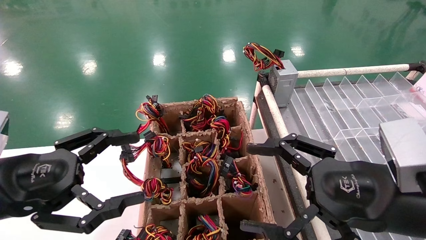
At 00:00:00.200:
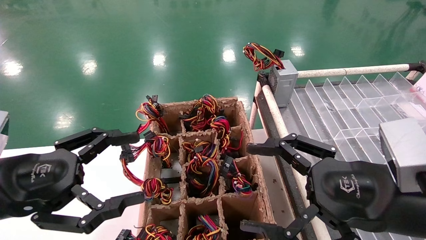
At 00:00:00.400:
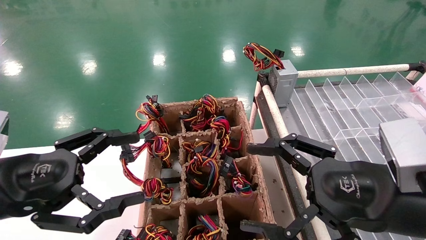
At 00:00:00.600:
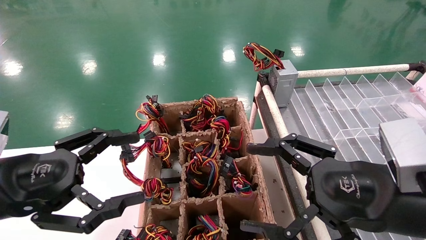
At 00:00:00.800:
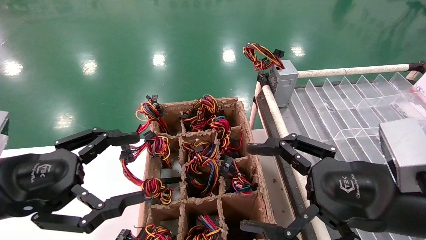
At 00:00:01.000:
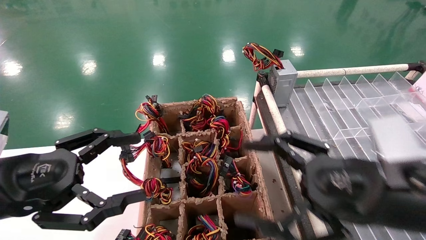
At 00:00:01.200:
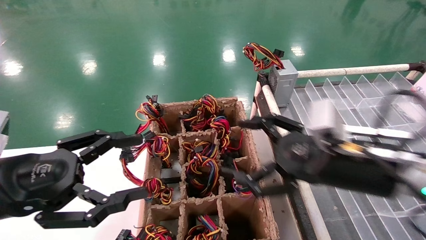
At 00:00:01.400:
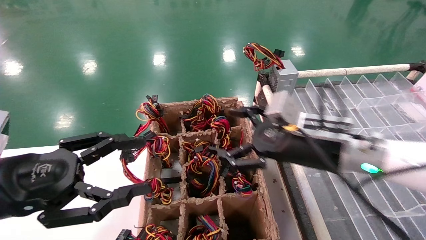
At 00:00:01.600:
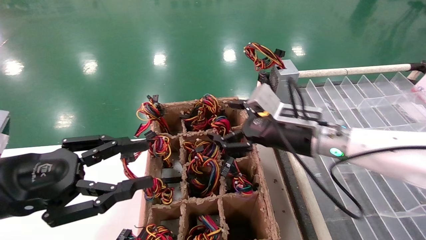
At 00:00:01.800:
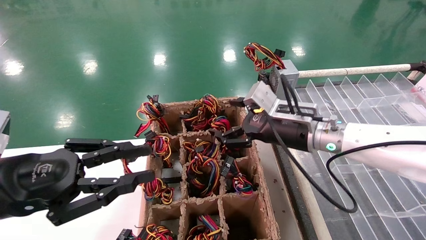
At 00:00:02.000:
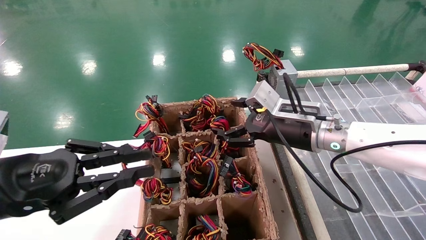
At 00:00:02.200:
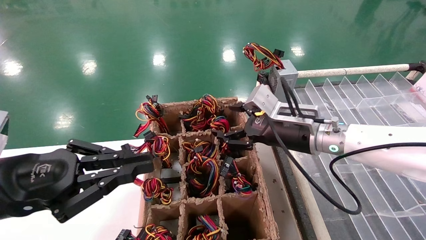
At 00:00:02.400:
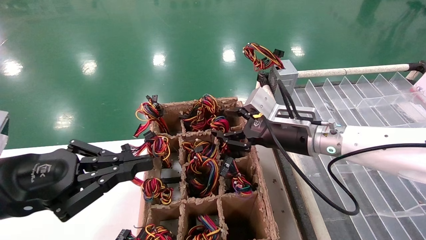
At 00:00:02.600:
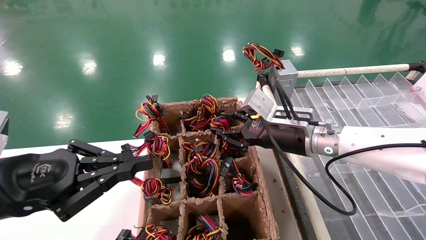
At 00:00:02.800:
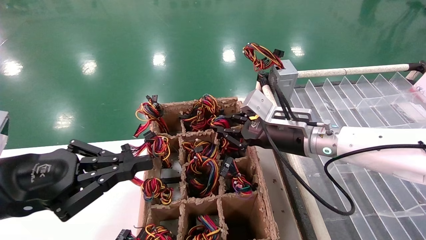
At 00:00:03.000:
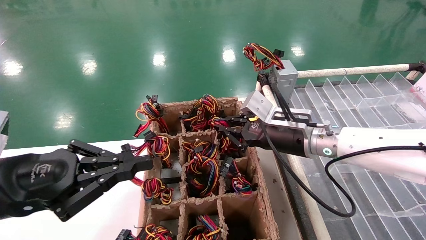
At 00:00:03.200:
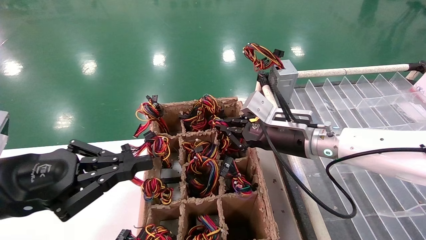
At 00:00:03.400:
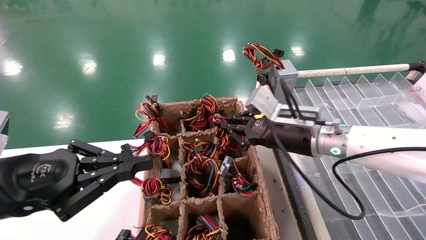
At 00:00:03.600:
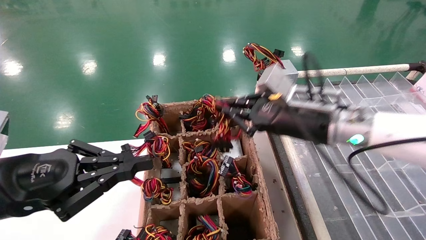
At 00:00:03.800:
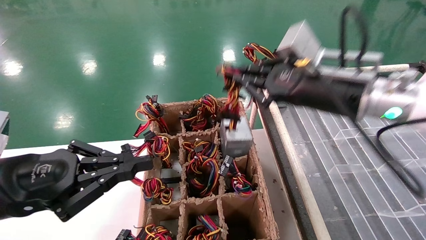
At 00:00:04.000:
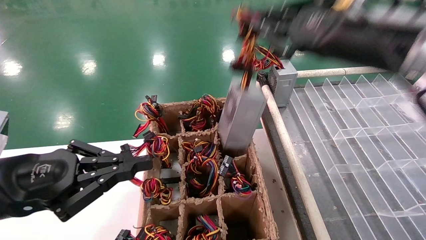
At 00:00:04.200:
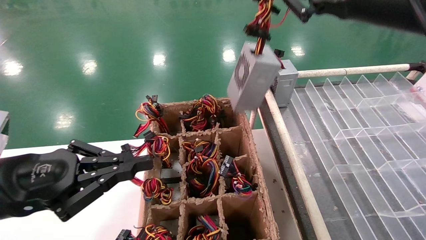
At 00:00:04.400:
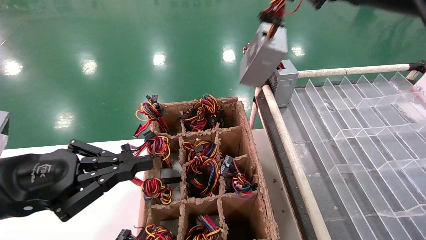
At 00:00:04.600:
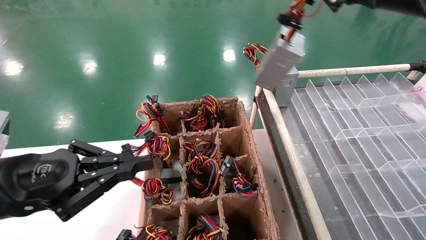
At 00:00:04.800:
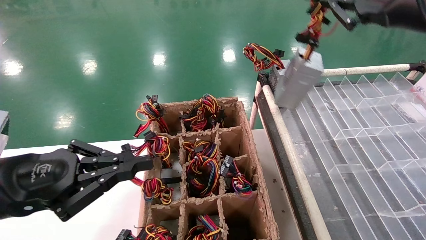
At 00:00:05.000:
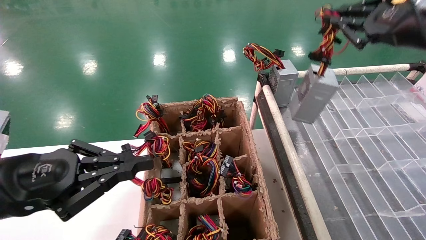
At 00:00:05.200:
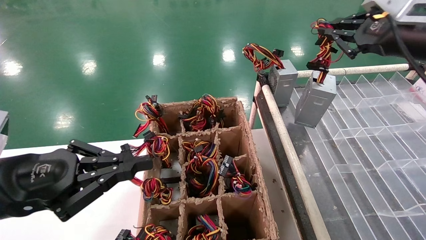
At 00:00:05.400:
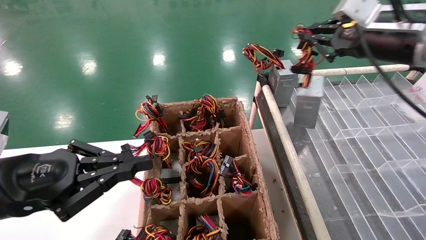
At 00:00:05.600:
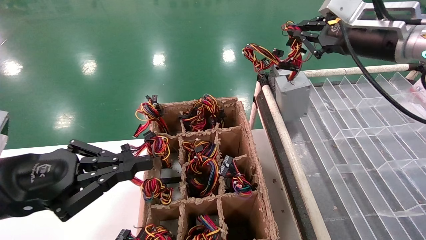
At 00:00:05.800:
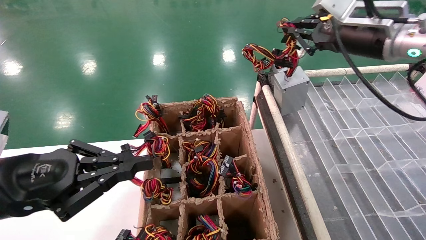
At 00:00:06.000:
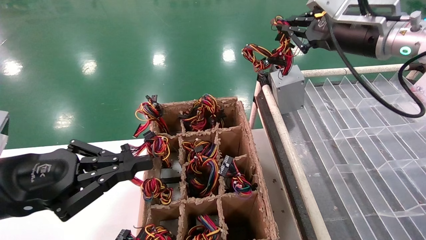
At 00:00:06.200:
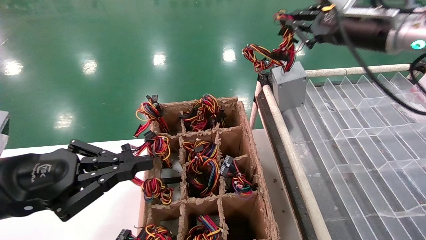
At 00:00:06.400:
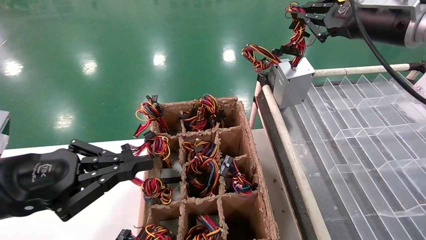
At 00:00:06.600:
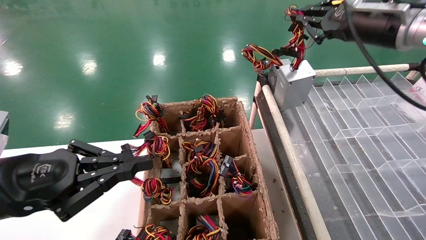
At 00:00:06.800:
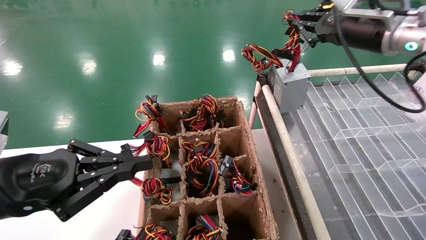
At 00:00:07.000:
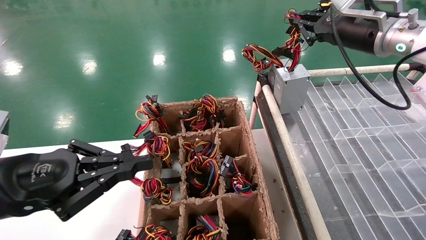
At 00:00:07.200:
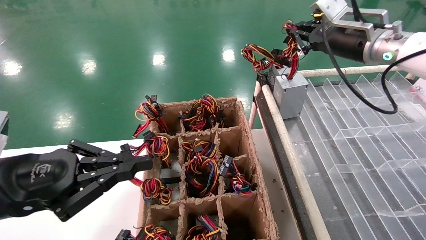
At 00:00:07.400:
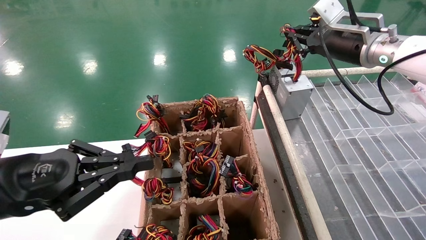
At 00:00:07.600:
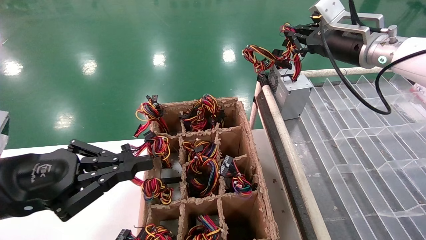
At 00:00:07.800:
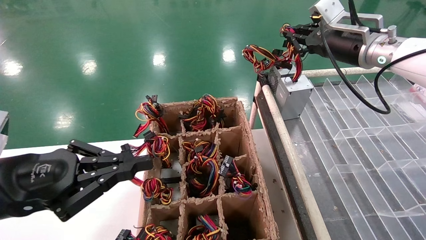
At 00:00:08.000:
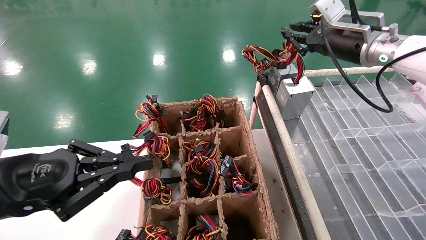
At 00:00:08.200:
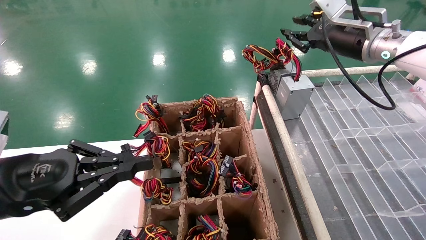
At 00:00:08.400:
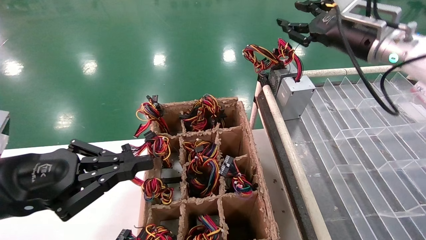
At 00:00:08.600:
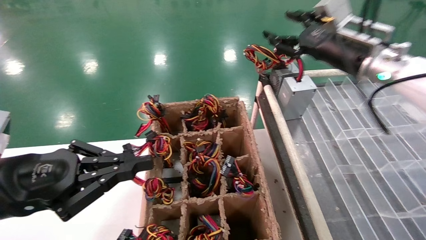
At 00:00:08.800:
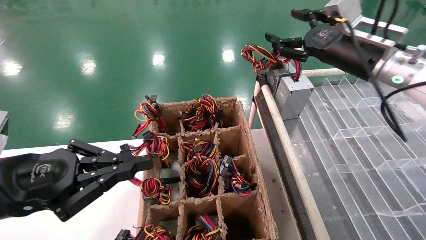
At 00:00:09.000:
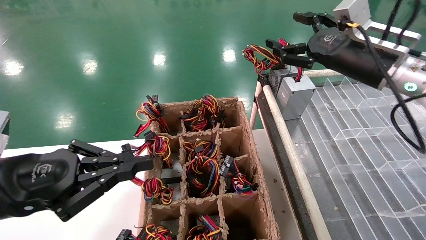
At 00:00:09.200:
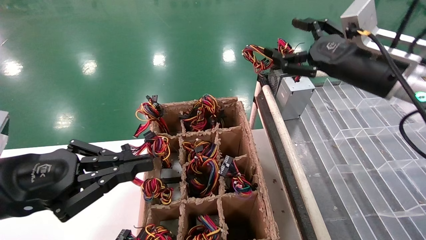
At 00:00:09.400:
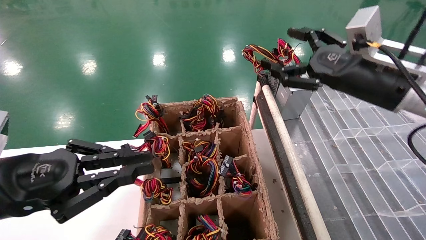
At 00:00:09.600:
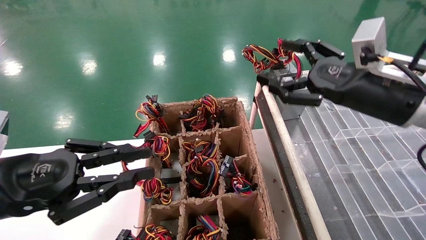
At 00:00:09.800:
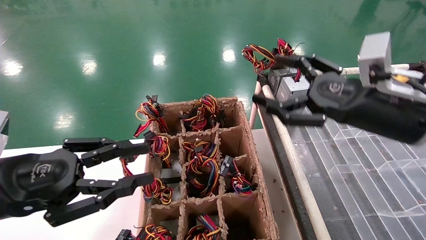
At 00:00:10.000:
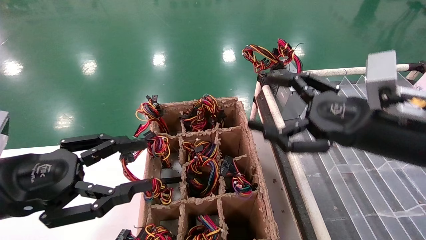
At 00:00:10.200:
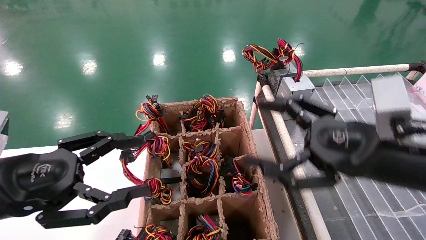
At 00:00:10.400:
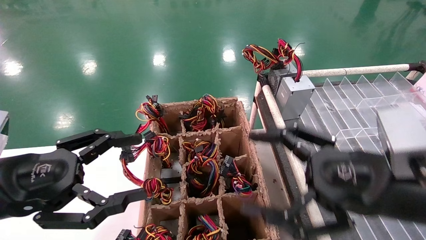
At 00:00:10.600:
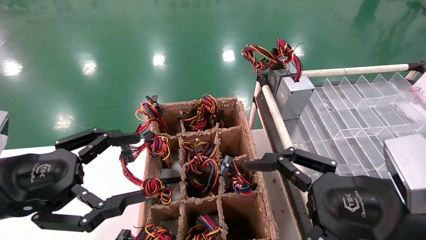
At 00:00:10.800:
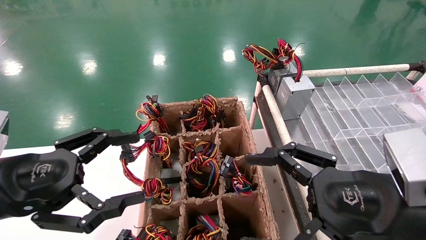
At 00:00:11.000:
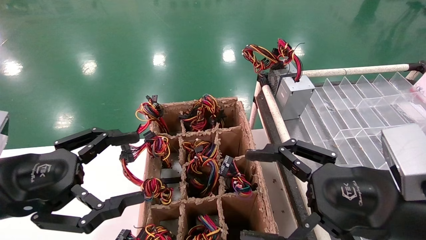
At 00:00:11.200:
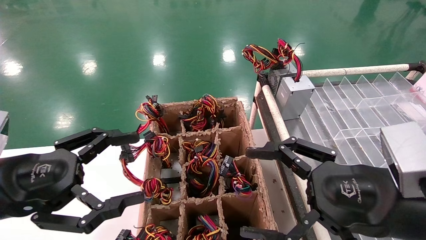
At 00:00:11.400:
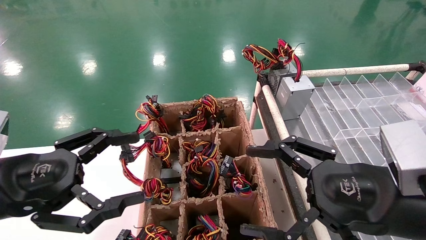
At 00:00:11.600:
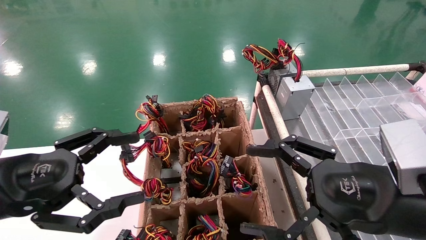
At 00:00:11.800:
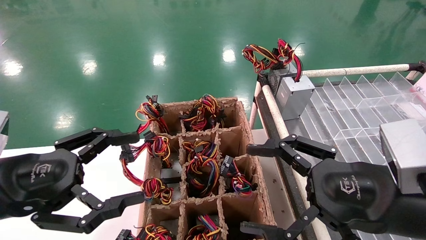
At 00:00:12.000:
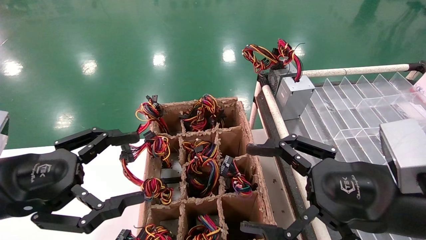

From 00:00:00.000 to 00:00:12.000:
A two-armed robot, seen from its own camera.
Step, from 00:00:01.400 to 00:00:03.000: Grab the main unit power supply from the containment box.
Step, from 00:00:03.200 to 00:00:08.200: Place the main unit power supply in the designated area.
From 00:00:00.000 to 00:00:01.600: The right gripper shifts about 15 cm forward; the left gripper closes up.
From 00:00:01.600 to 00:00:03.000: The left gripper closes its fingers, while the right gripper closes up.
From 00:00:03.000 to 00:00:04.400: The right gripper heads upward and backward, covering some 25 cm.
From 00:00:04.400 to 00:00:06.000: The right gripper travels forward by some 10 cm.
From 00:00:06.000 to 00:00:07.600: The right gripper heads forward, covering approximately 5 cm.
From 00:00:07.600 to 00:00:09.000: The right gripper moves backward, some 5 cm, and opens its fingers.
From 00:00:09.000 to 00:00:10.400: The left gripper opens up; the right gripper goes some 20 cm backward and downward.
From 00:00:10.400 to 00:00:12.000: The grippers stay close to where they were, moving slightly.

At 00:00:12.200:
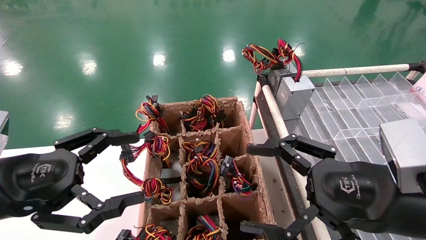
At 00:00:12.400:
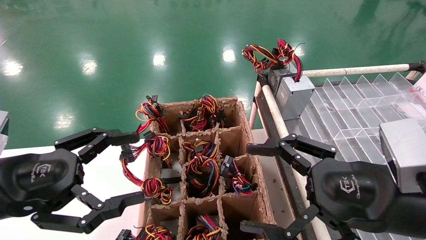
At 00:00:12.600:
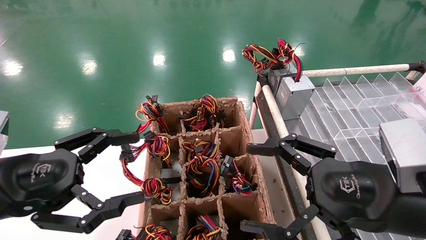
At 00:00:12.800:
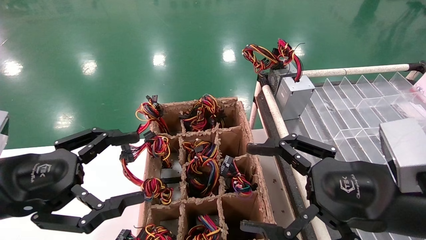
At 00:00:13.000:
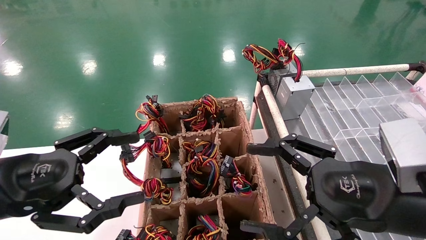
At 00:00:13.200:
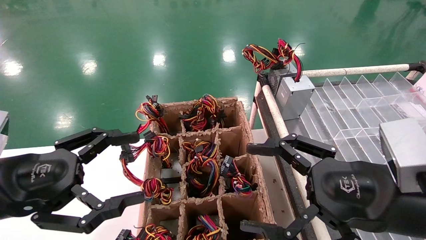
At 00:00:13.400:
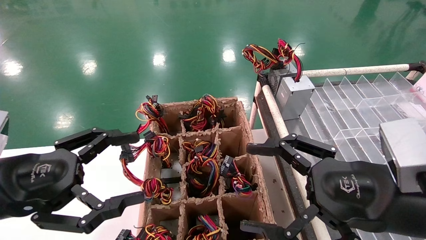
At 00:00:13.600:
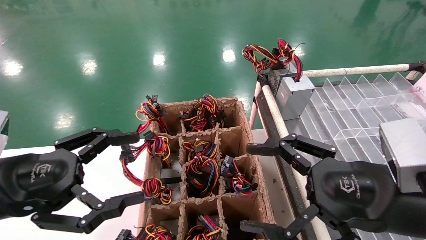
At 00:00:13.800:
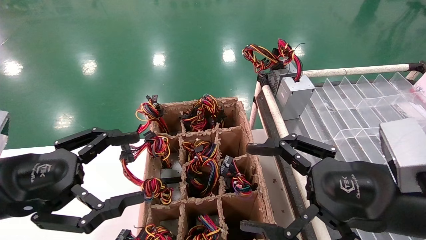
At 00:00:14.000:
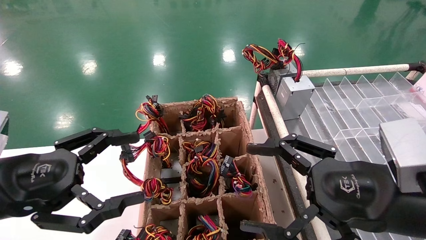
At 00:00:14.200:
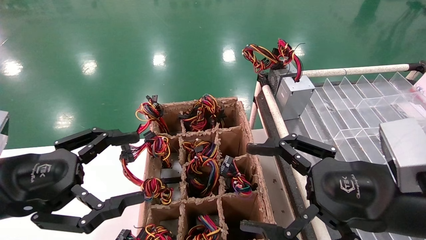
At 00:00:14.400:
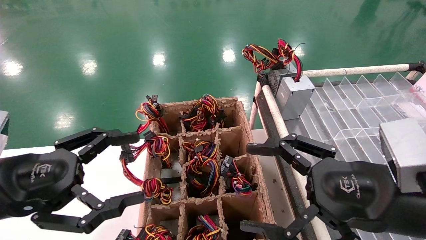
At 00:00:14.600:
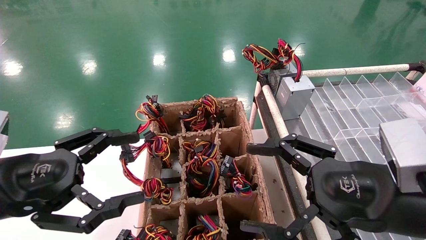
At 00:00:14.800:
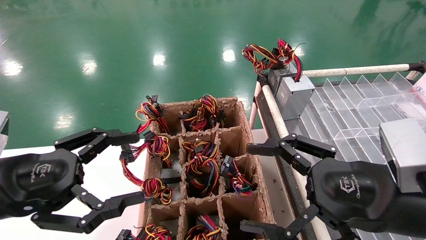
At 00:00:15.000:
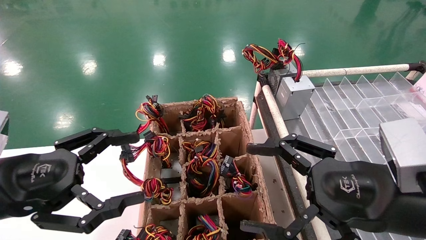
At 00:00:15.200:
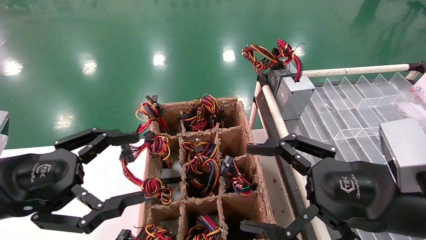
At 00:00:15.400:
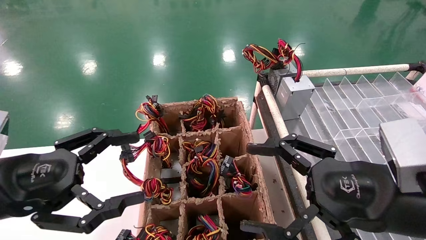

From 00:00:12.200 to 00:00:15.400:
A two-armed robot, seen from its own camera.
From 00:00:12.200 to 00:00:15.400: Neither gripper changes place.
